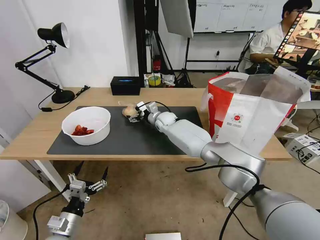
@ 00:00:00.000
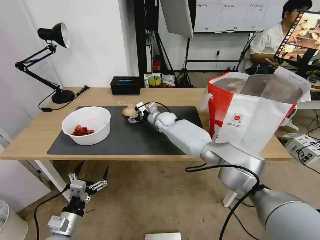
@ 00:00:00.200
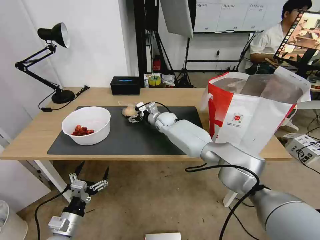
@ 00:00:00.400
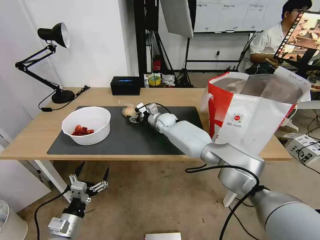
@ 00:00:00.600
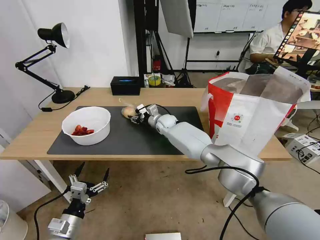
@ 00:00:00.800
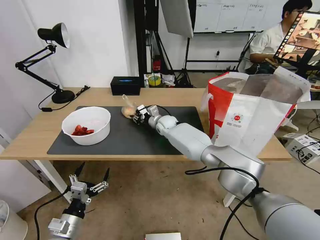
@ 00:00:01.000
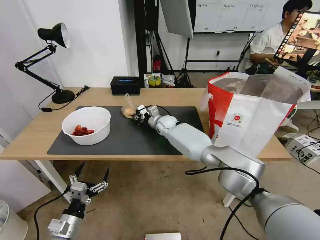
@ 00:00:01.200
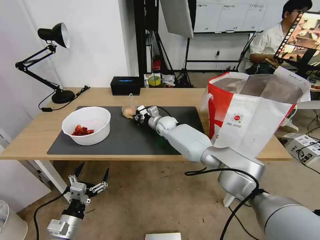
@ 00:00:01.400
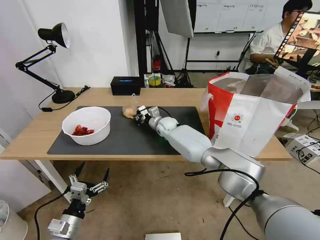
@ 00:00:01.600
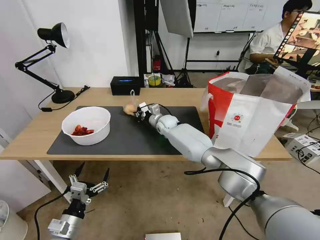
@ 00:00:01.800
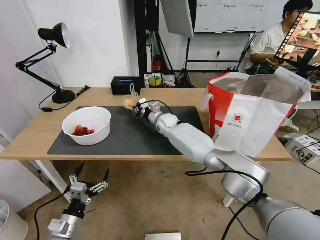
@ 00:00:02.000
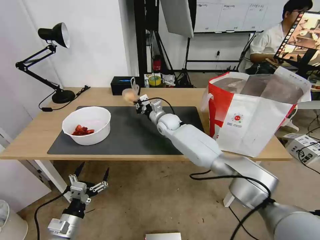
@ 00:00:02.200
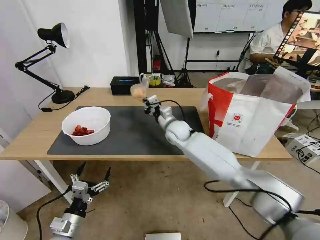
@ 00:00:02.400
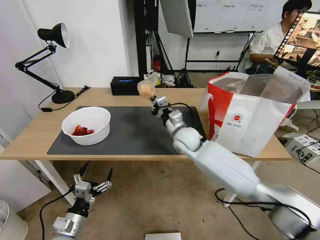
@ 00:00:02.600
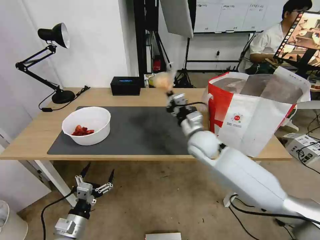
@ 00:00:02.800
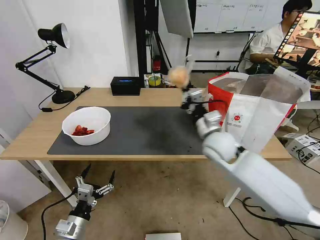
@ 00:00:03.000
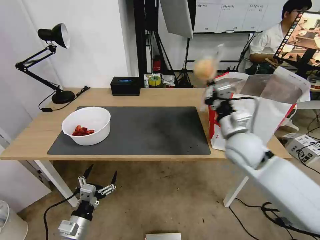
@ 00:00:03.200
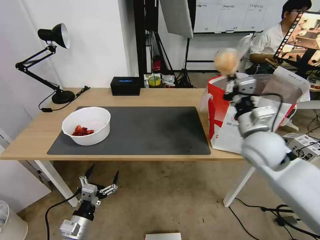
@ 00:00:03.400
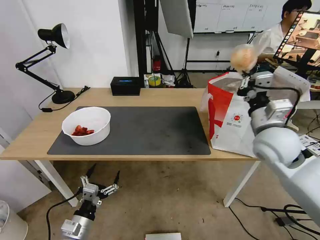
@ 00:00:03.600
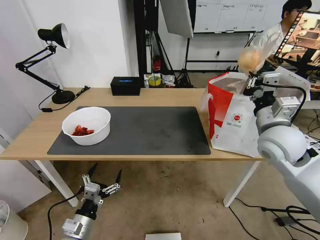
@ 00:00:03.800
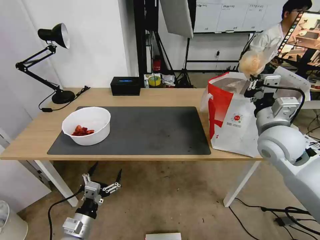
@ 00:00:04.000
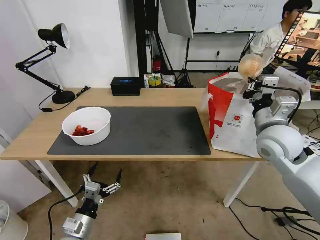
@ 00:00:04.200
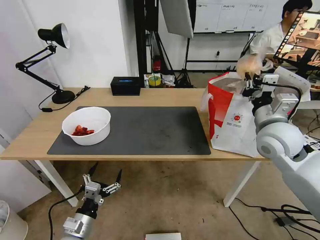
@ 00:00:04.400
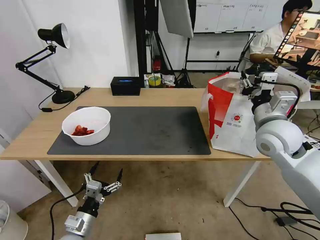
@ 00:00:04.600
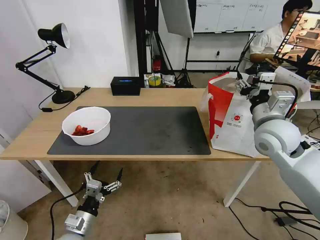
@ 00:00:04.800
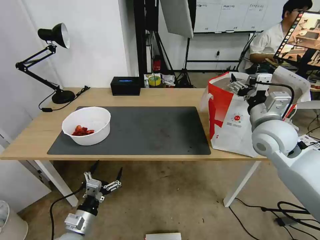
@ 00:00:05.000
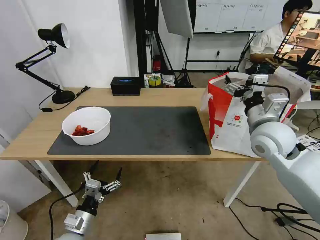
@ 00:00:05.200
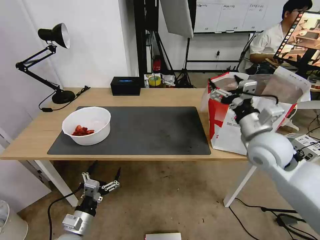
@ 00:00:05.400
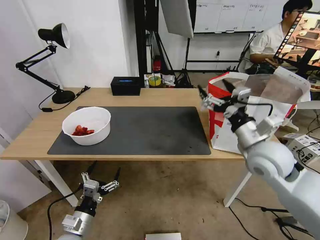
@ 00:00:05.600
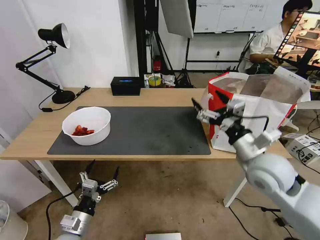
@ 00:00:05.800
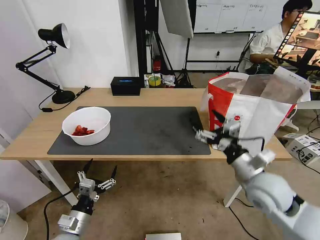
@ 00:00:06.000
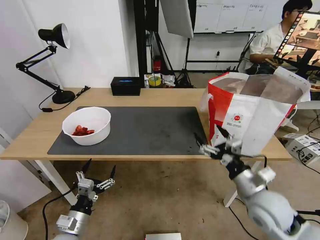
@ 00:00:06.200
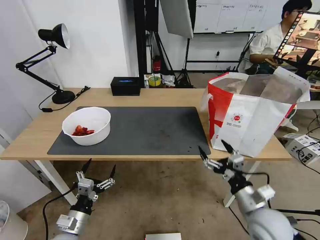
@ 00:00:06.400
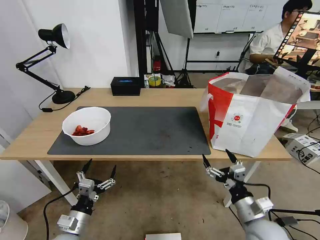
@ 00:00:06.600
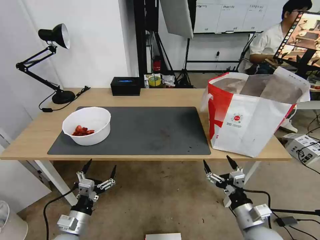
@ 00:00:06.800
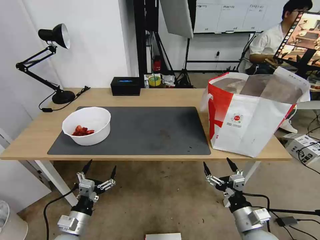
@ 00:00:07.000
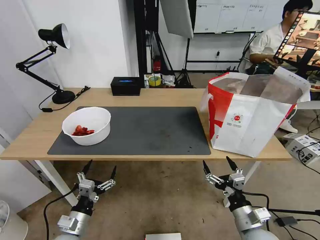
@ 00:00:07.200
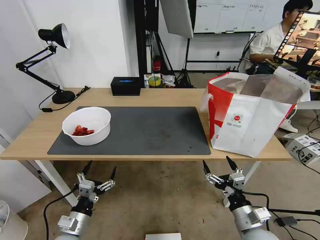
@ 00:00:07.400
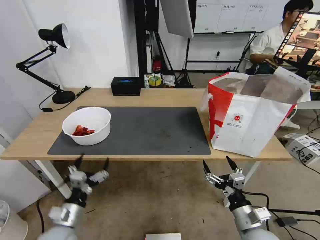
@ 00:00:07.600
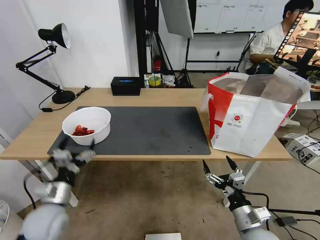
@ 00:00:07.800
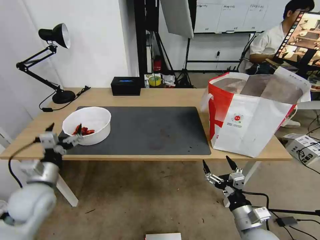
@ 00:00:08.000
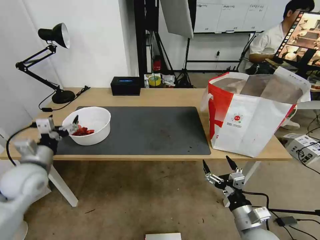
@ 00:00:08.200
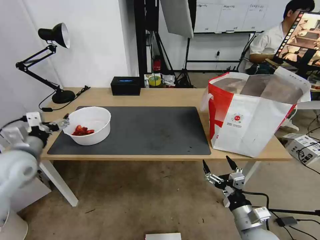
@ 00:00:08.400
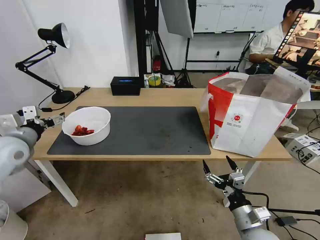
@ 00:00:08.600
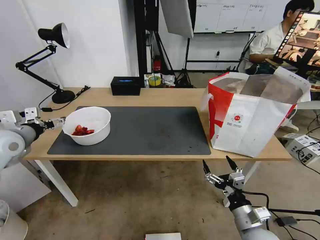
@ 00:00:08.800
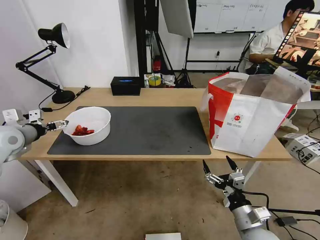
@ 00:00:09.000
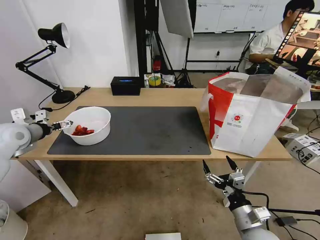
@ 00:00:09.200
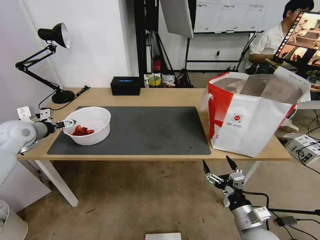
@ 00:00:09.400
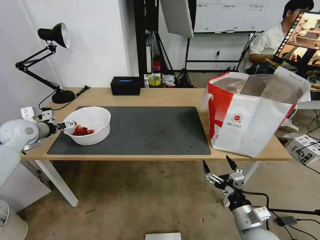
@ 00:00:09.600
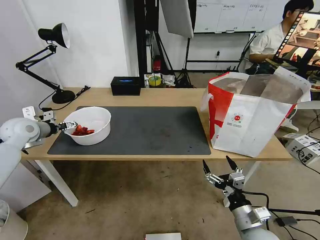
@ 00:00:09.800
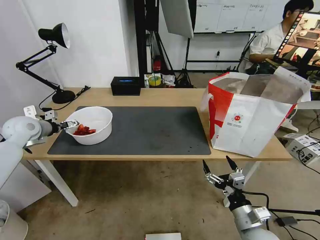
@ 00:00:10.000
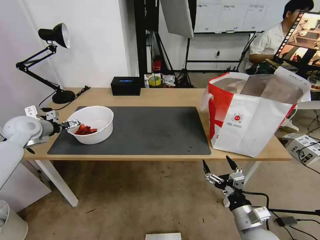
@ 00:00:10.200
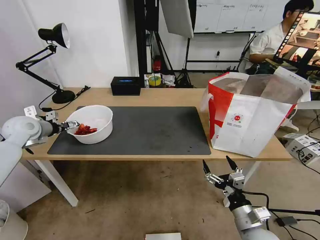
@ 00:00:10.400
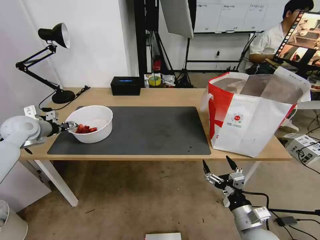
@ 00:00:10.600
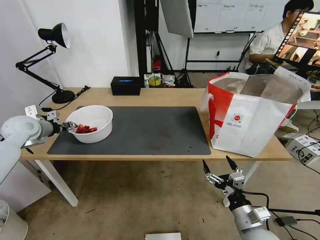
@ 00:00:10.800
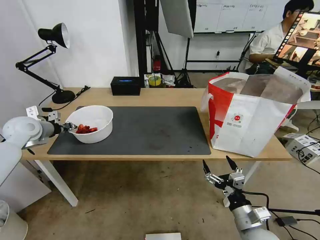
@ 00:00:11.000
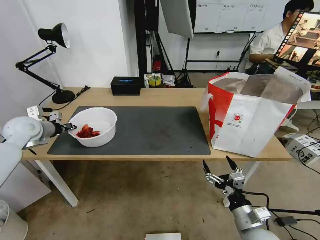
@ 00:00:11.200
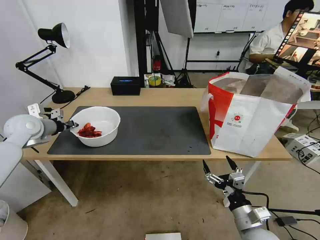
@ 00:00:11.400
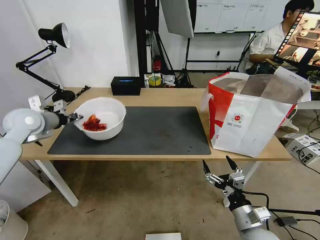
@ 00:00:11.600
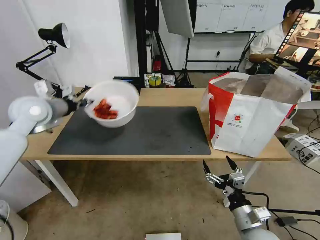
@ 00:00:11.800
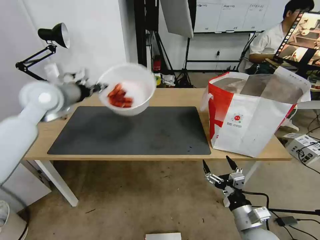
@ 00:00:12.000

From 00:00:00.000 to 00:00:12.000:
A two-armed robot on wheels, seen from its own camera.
Task of the whole recording: Pick up the trash from the table and place it into the takeout bag.
From 00:00:00.000 to 00:00:01.600: The right gripper closes up.
From 00:00:01.600 to 00:00:03.000: The right gripper goes some 30 cm backward, to the right and upward.
From 00:00:03.000 to 00:00:04.400: The right gripper is displaced to the right and upward by approximately 15 cm.
From 00:00:04.400 to 00:00:06.000: The right gripper moves backward and downward, about 15 cm, and opens up.
From 00:00:06.000 to 00:00:07.600: The right gripper moves downward and backward, about 15 cm.
From 00:00:07.600 to 00:00:09.000: The left gripper is displaced forward, upward and to the left by roughly 35 cm.
From 00:00:09.000 to 00:00:10.400: The left gripper shifts about 5 cm forward.
From 00:00:10.400 to 00:00:12.000: The left gripper shifts about 20 cm to the right and upward, and closes up.

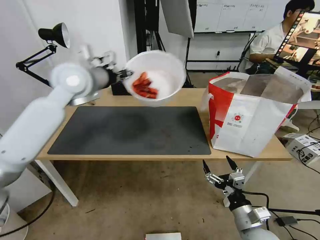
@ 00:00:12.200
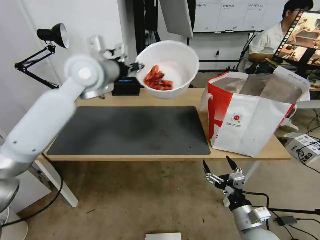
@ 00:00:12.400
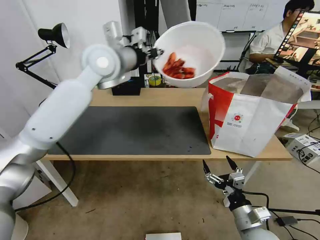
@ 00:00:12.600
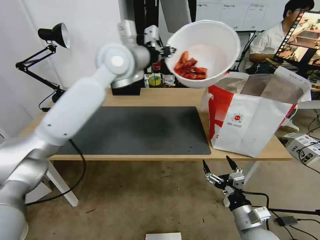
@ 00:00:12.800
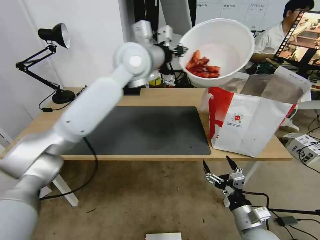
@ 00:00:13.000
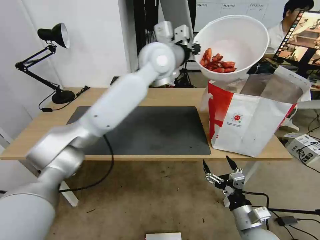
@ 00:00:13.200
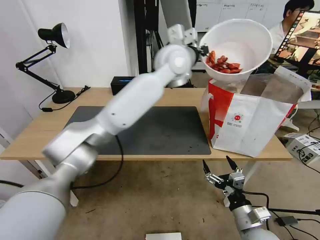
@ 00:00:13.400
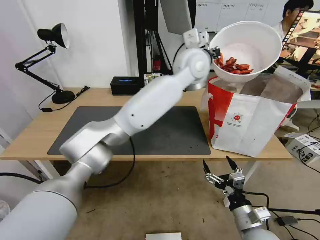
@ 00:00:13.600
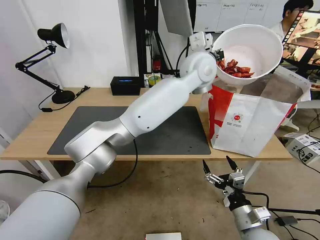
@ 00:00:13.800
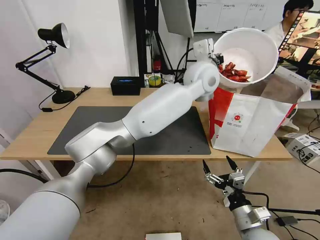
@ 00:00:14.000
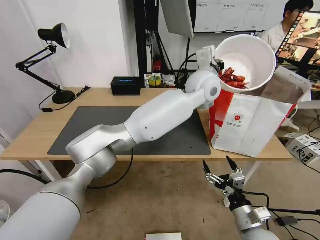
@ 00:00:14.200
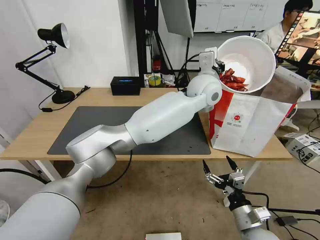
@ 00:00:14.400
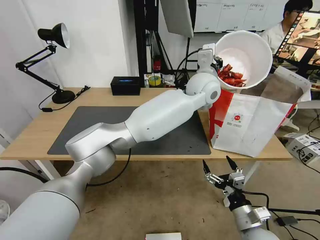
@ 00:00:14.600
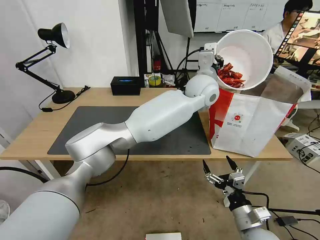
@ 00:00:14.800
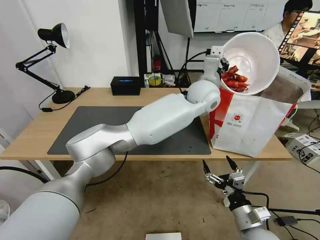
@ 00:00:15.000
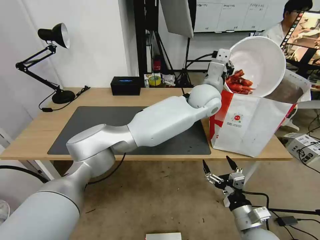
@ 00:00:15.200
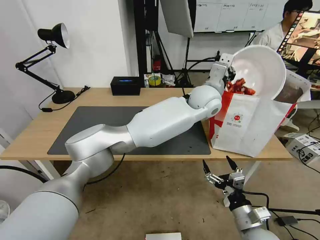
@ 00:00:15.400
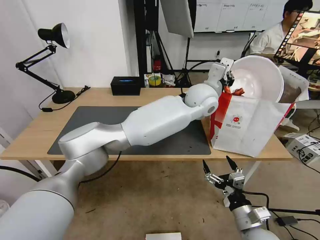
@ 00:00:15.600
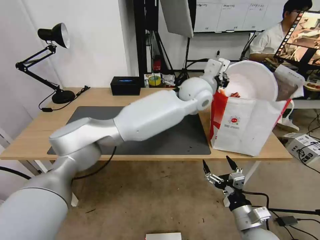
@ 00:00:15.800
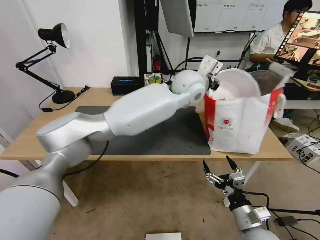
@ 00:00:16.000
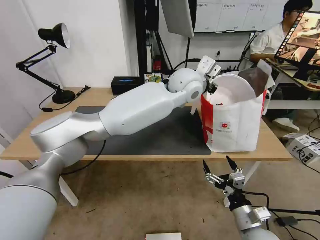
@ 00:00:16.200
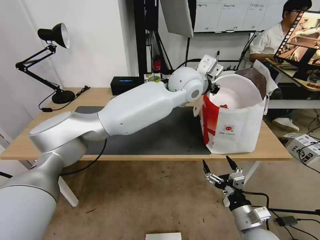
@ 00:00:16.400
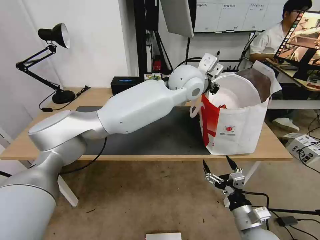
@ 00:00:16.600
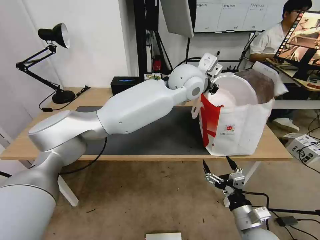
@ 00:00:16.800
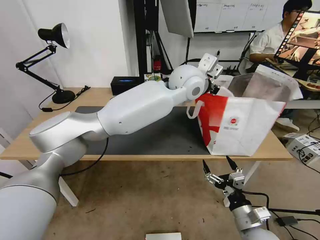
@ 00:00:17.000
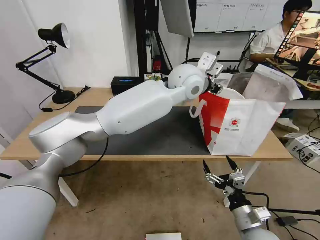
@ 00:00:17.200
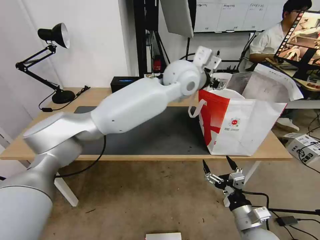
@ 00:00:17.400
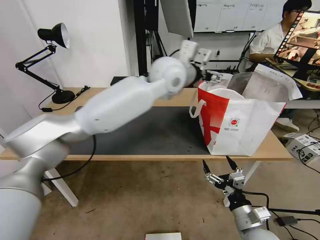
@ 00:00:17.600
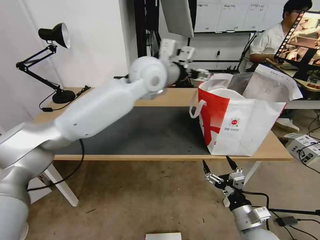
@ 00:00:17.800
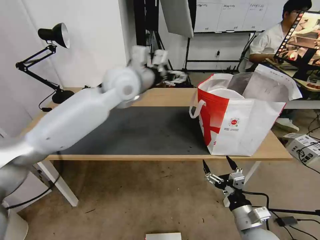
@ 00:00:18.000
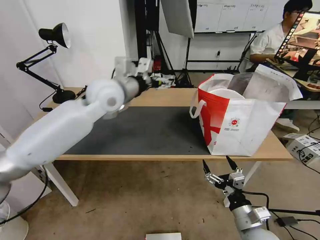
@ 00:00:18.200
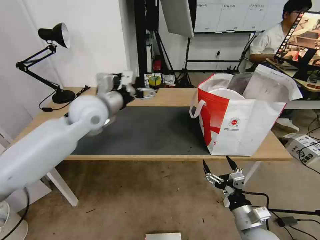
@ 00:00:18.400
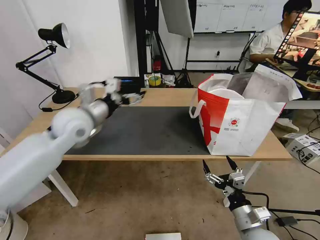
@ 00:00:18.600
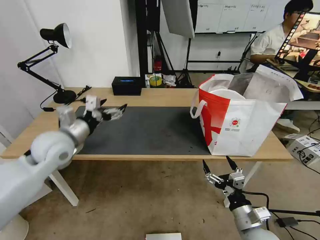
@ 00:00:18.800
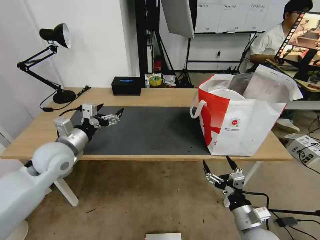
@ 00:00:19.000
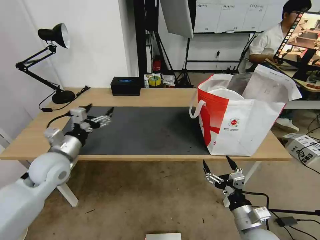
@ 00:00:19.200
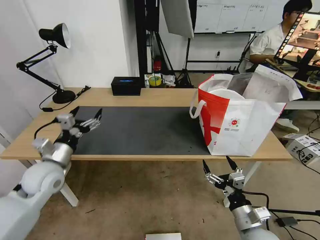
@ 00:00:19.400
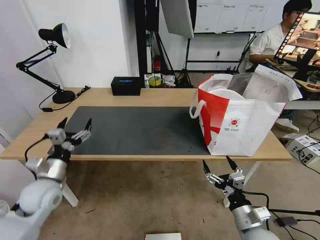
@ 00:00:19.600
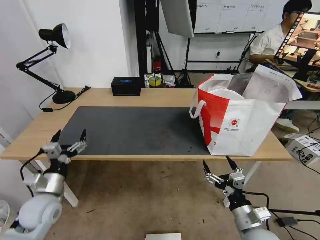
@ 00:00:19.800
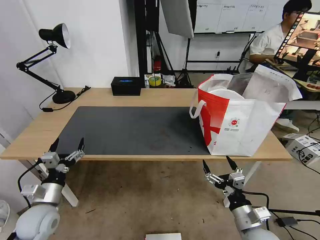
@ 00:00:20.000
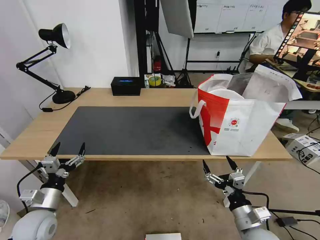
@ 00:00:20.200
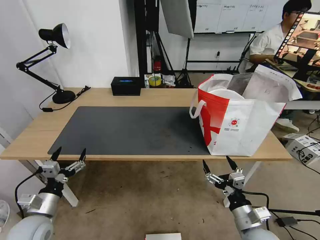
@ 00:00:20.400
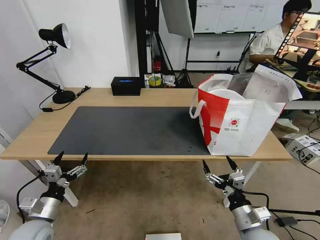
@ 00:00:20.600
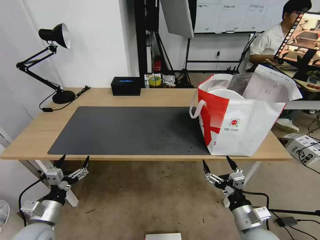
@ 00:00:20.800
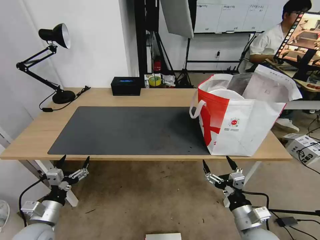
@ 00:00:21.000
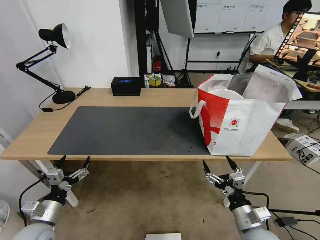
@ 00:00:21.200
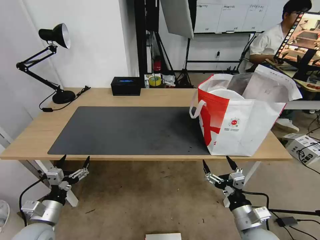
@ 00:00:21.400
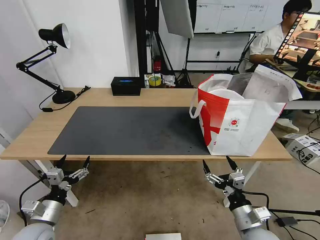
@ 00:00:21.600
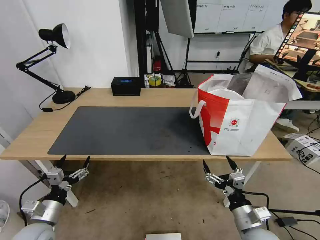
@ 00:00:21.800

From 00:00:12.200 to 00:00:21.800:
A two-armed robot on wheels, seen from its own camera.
Task of the whole recording: Pick up the trash from the table and place it into the takeout bag.
From 00:00:12.200 to 00:00:13.800: The left gripper is displaced to the right by about 35 cm.
From 00:00:13.800 to 00:00:15.400: The left gripper is displaced downward by about 10 cm.
From 00:00:15.400 to 00:00:17.000: The left gripper shifts approximately 10 cm to the left and upward.
From 00:00:17.000 to 00:00:18.600: The left gripper moves to the left, approximately 30 cm, and opens its fingers.
From 00:00:18.600 to 00:00:20.200: The left gripper shifts about 30 cm downward, backward and to the left.
From 00:00:20.200 to 00:00:21.800: The grippers move only a little.
